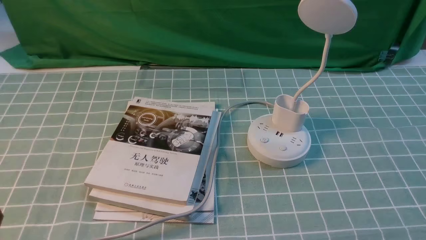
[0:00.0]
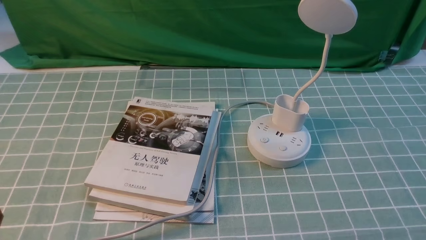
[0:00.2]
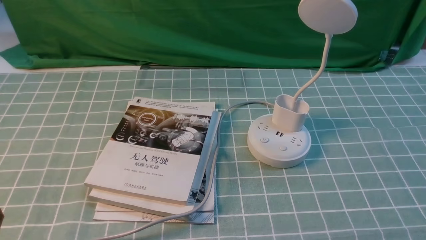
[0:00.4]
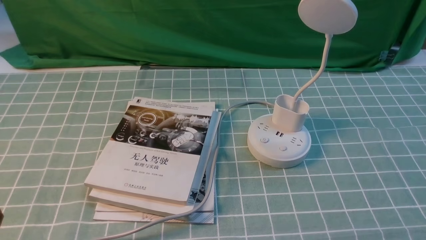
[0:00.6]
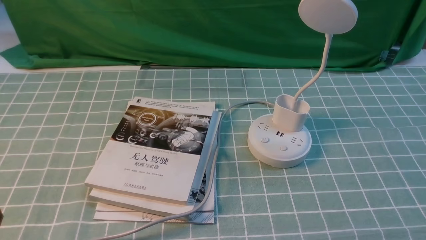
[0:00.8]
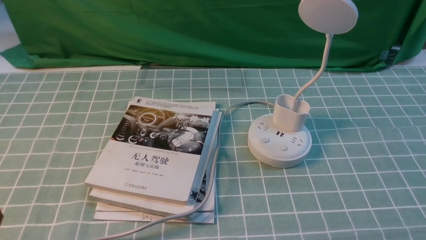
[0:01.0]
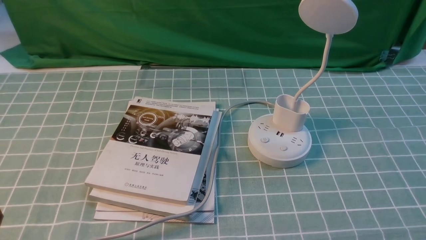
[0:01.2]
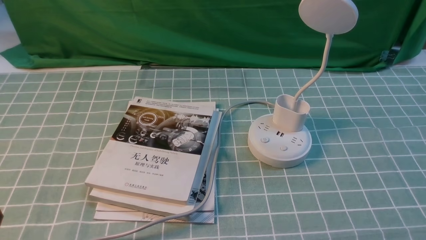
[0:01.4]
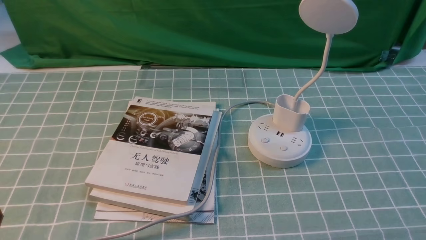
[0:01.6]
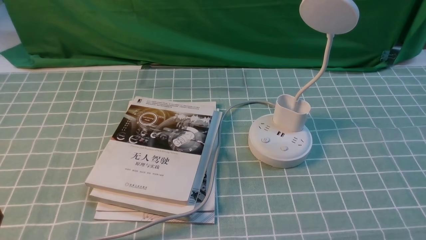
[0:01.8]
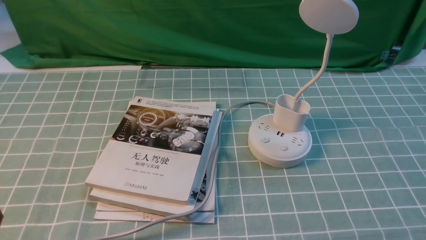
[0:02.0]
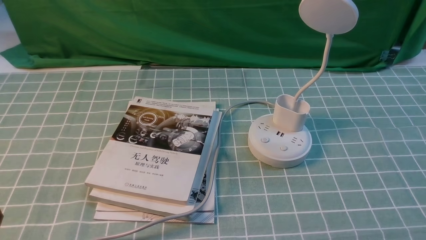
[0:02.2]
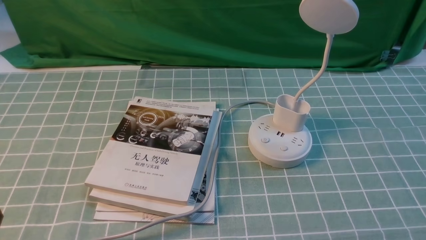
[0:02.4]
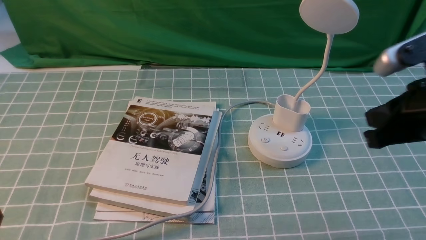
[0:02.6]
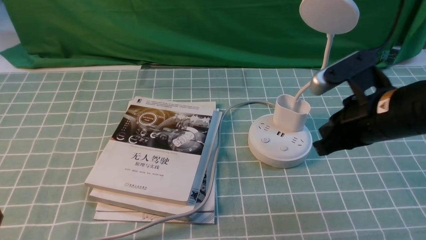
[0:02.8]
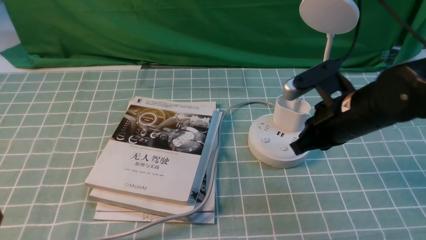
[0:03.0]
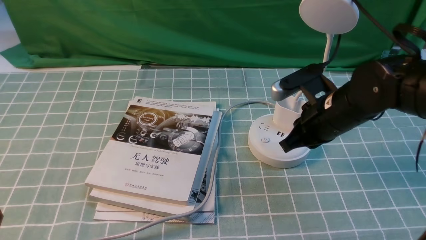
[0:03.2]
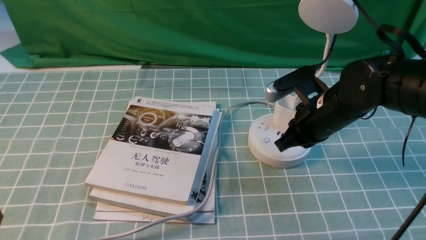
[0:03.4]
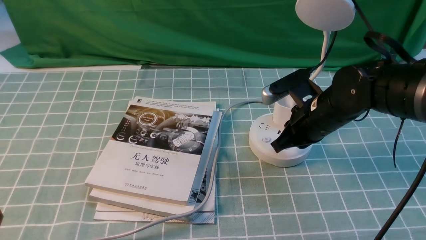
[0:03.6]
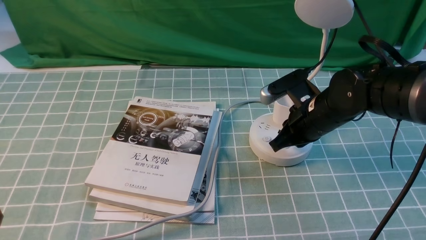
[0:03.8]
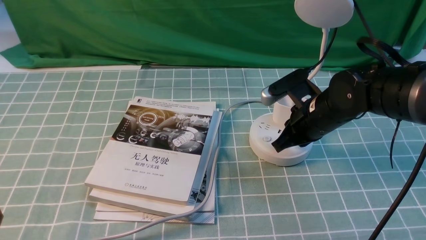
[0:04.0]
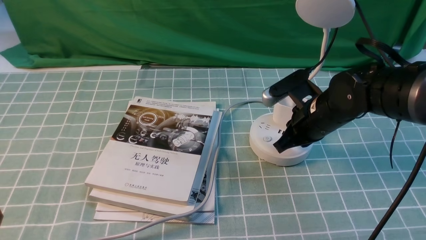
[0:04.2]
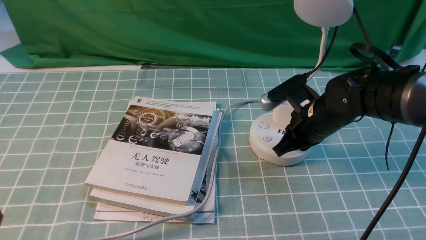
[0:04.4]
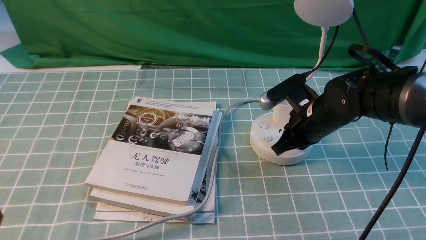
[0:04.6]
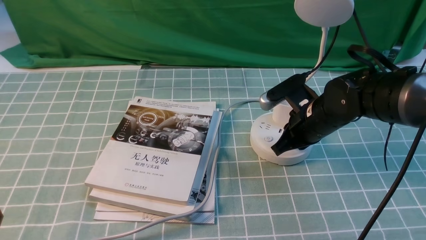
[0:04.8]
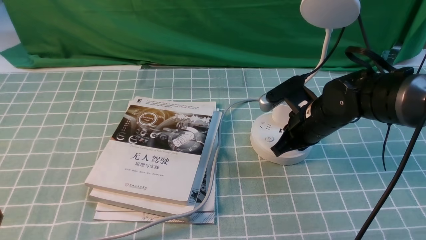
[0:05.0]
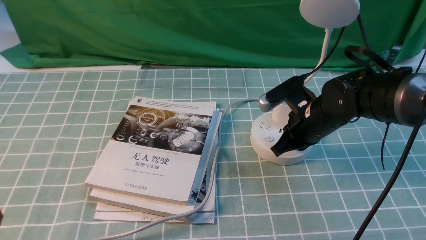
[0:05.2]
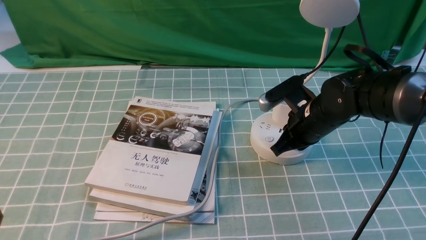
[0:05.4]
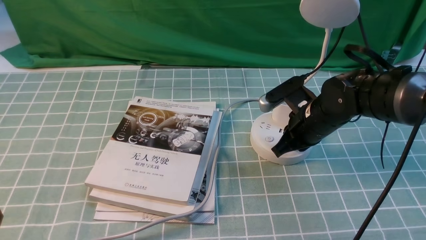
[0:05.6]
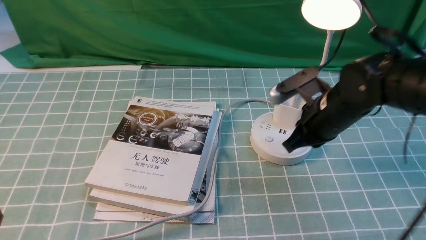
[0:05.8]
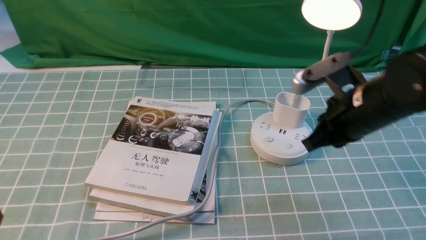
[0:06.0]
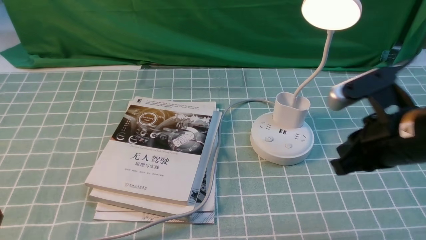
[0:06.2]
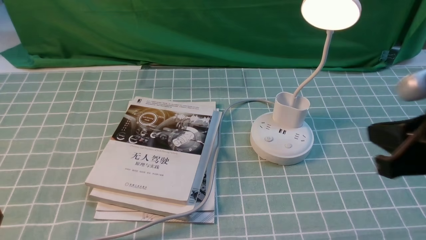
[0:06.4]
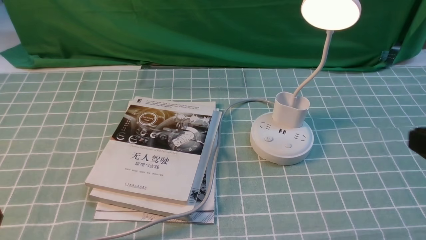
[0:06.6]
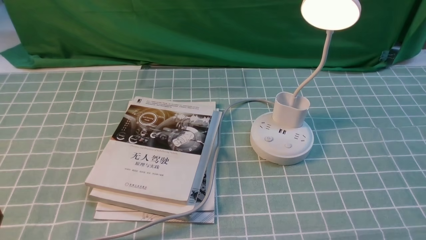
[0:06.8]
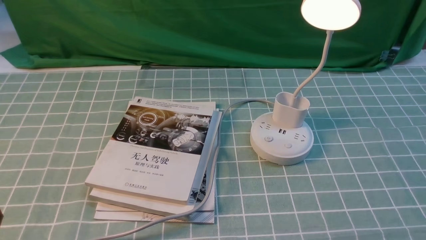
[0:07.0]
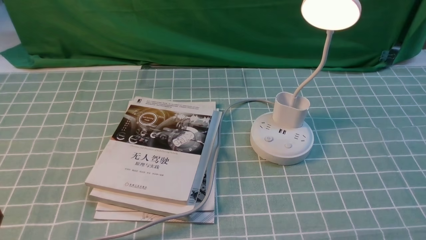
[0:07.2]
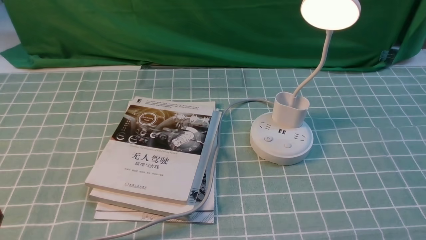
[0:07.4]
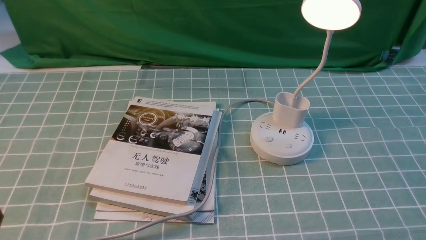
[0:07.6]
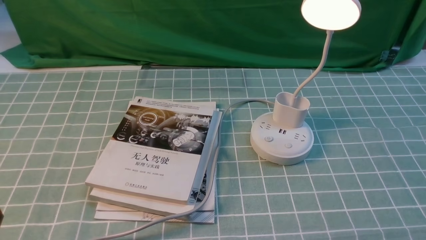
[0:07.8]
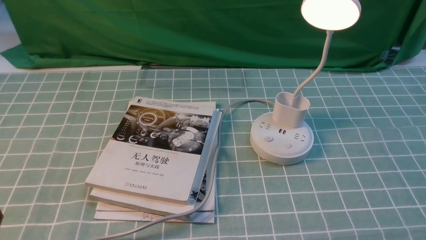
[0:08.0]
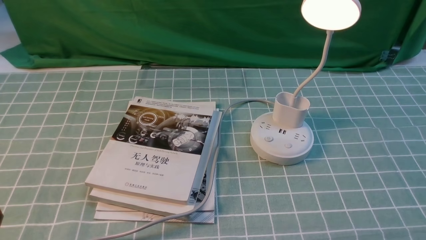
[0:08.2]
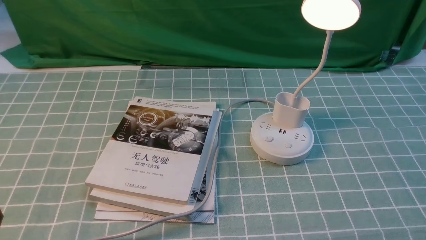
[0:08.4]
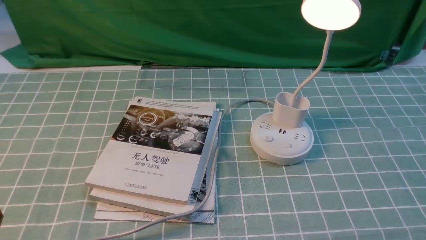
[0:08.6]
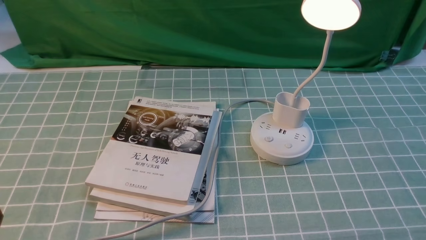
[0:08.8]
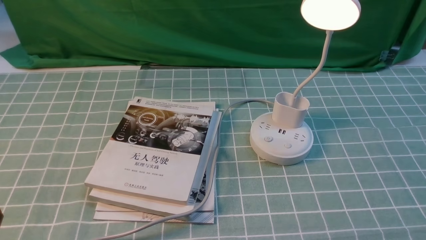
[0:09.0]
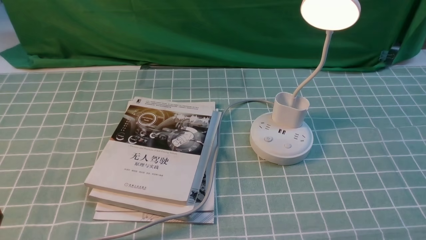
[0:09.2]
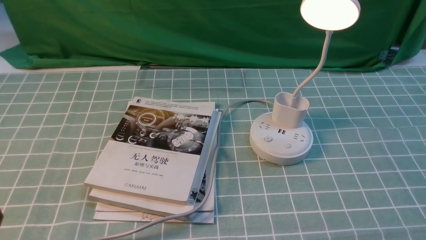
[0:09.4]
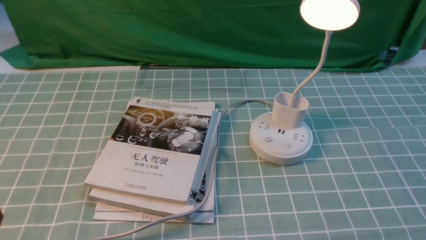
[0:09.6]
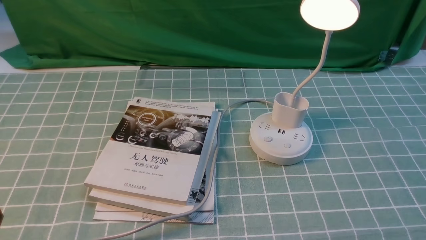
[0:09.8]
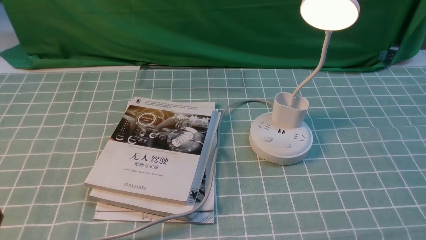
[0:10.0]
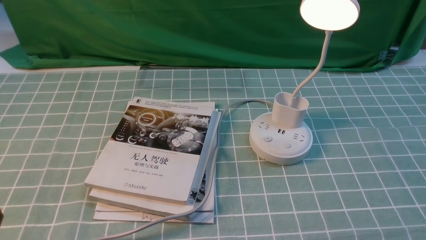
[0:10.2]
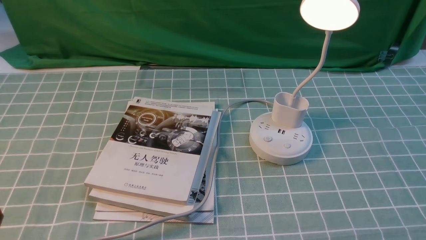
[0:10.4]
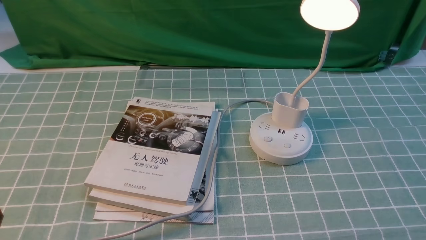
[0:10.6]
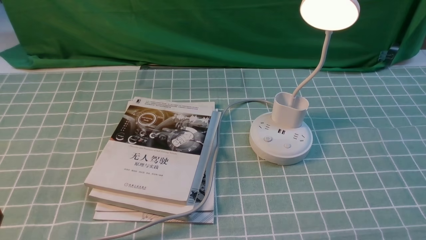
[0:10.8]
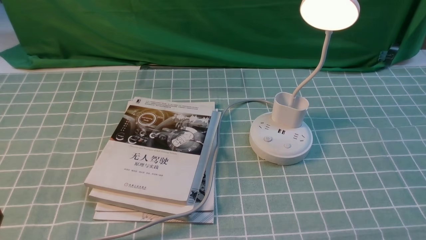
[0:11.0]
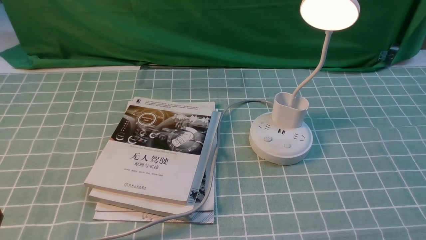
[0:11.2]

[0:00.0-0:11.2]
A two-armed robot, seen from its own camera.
Step, 0:00.0 to 0:05.8: use the right arm to press the button switch on the lamp holder.
0:01.6 to 0:03.2: The right gripper heads forward and to the left, covering roughly 30 cm, and closes its fingers.
0:03.2 to 0:04.8: The right gripper changes place by about 5 cm.
0:04.8 to 0:06.4: The right gripper is displaced backward, upward and to the right by approximately 25 cm.
0:06.4 to 0:08.0: The right gripper heads downward, backward and to the right, covering approximately 20 cm, and opens up.
0:09.6 to 0:11.2: Neither gripper changes place.
